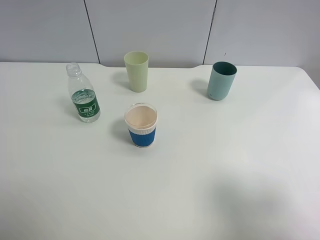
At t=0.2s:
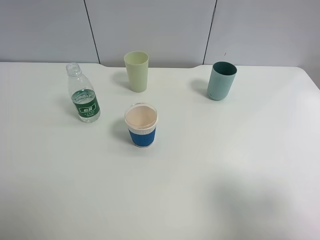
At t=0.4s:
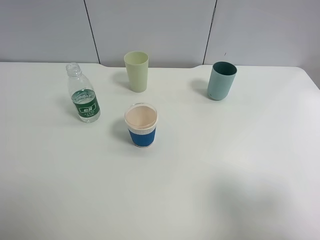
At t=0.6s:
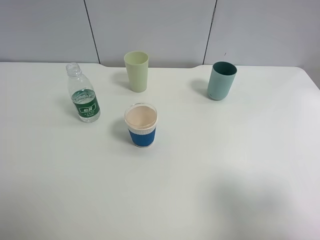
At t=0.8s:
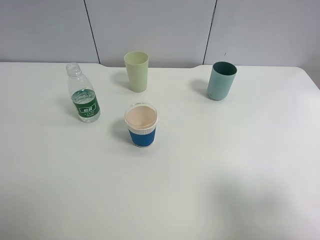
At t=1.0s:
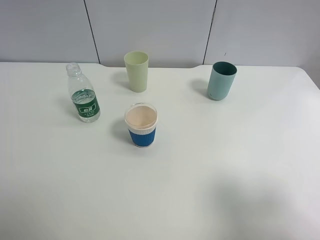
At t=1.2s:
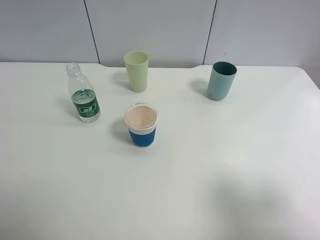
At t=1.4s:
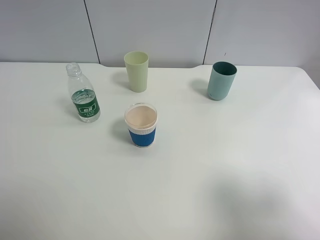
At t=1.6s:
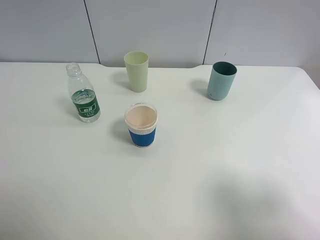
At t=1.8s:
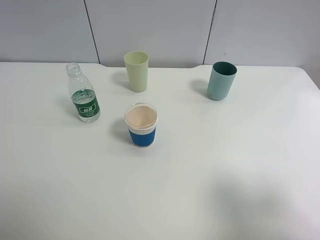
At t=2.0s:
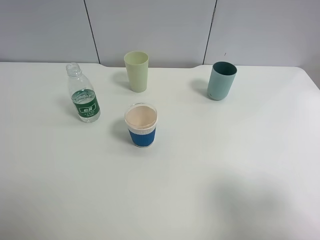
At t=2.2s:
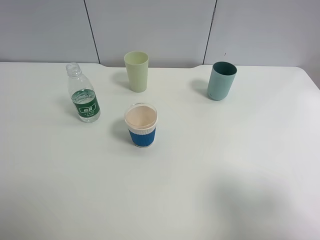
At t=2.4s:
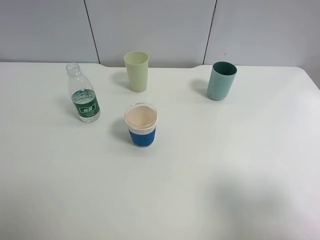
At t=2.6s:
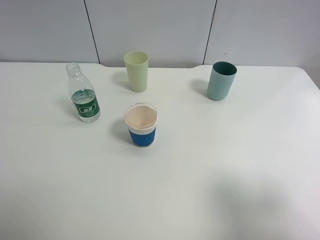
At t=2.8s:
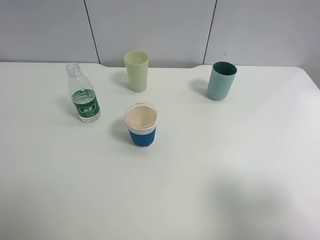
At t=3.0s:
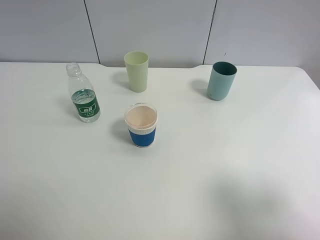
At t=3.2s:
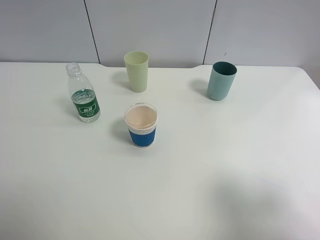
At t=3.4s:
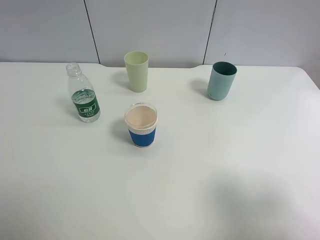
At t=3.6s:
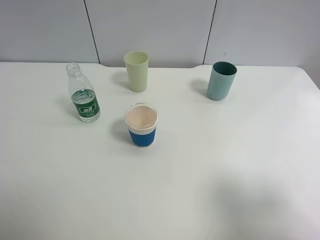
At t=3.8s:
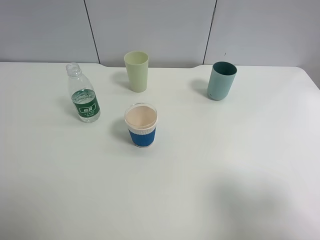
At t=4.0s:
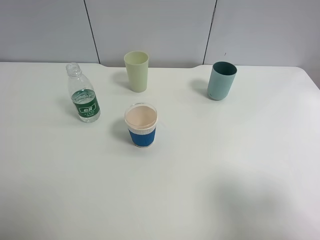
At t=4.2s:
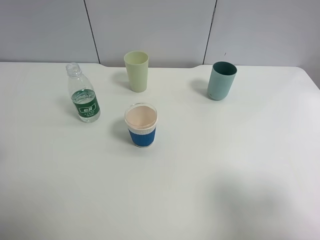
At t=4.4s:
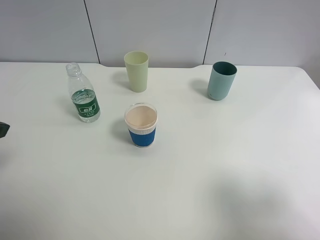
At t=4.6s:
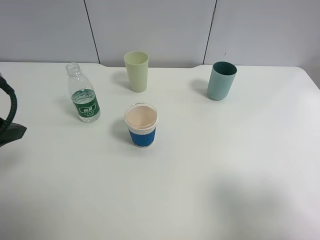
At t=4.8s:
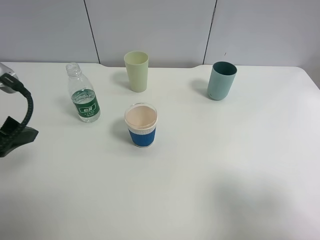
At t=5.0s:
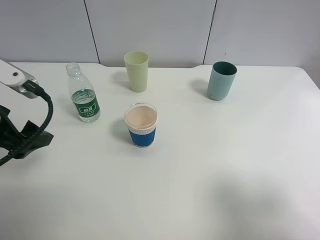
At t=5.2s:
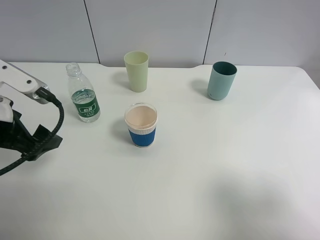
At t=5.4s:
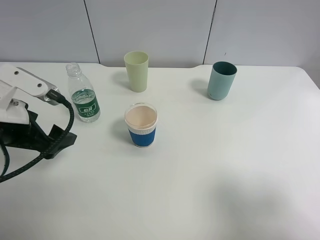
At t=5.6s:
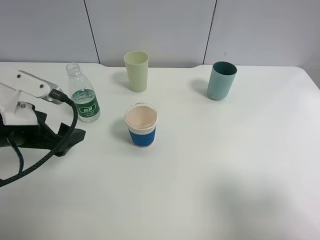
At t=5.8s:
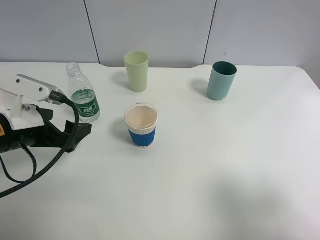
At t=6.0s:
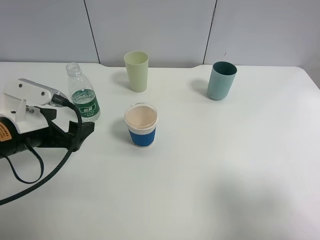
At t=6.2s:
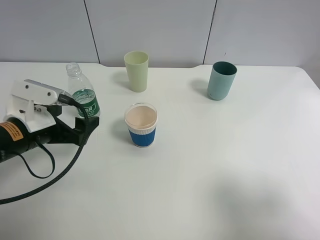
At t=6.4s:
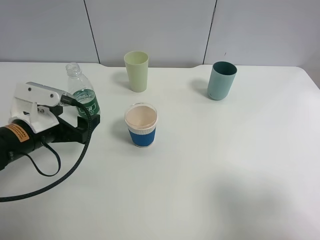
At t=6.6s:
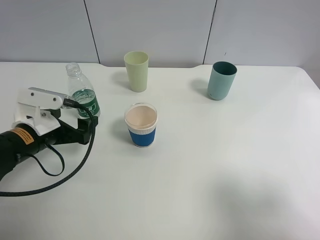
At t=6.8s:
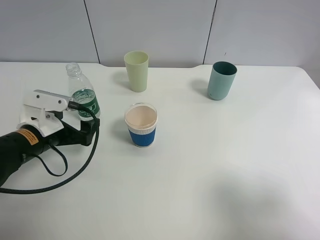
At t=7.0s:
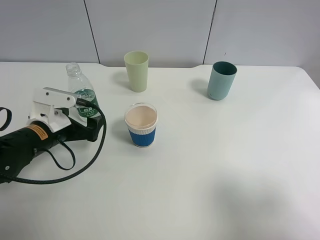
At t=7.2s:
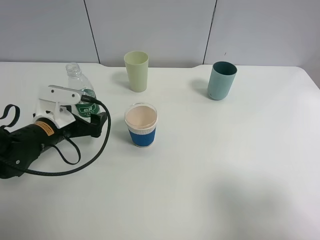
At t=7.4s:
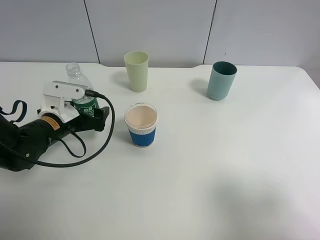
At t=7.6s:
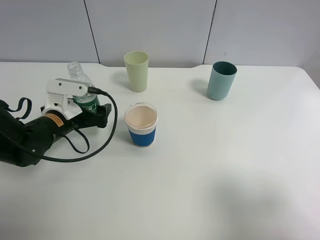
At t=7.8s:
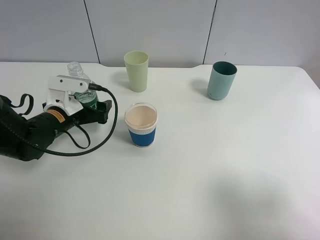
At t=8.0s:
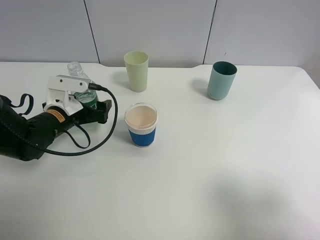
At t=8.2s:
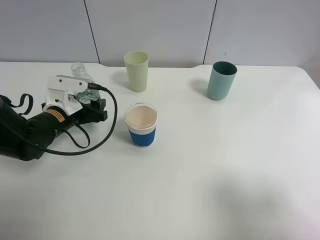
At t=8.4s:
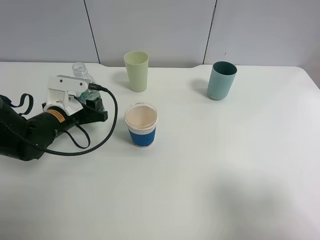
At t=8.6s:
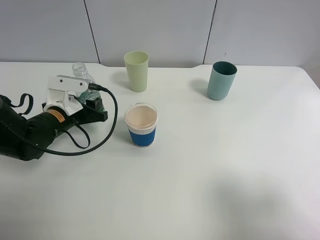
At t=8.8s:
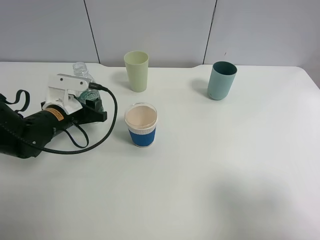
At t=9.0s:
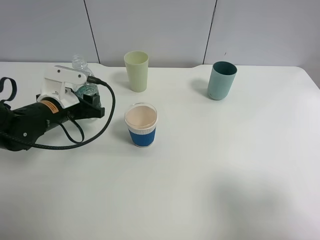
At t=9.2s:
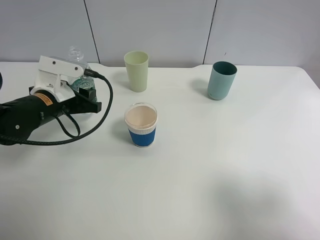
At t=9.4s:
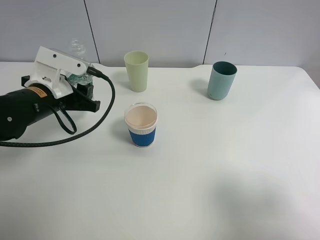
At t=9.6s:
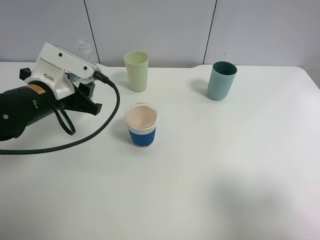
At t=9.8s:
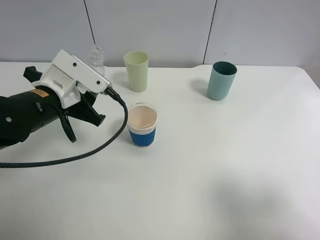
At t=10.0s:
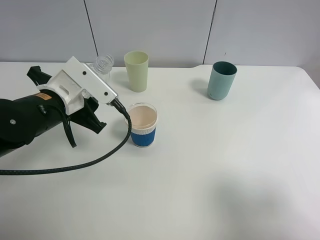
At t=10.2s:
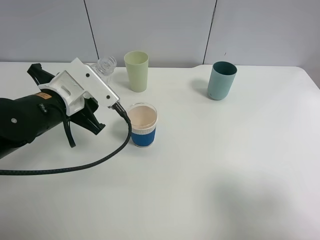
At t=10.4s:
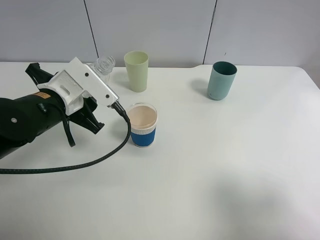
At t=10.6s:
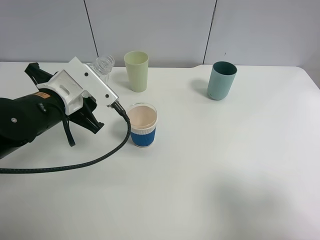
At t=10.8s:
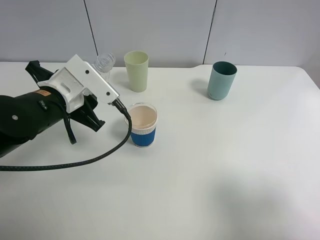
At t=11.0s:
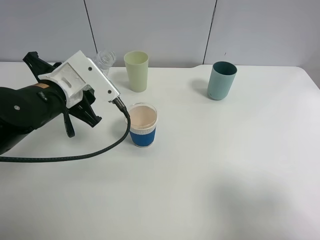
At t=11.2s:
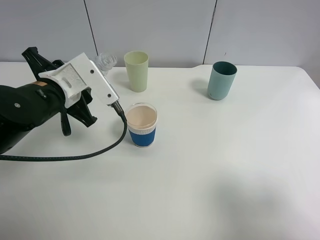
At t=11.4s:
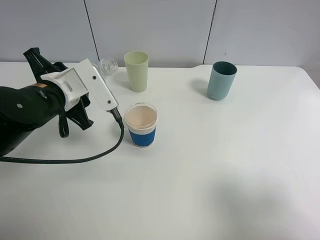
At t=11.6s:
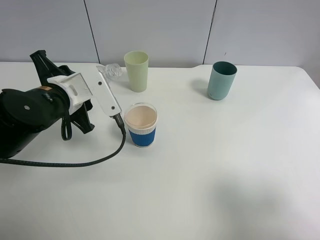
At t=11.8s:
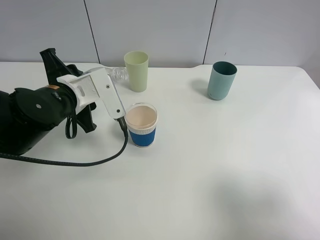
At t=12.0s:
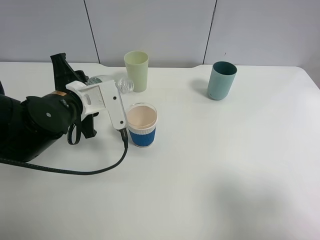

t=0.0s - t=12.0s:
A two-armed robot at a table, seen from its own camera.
Task of the whole recording: use a clamp to hold the bottle of the drink, pour the beverage into a random cup, then clamp the cup containing the drink and pour the drink into another random cup.
Step, t=0.0s - t=9.2s: Pick up the water bottle with left gripper.
t=0.0s - t=3.0s: Neither gripper changes place.
t=4.4s - t=6.0s: The left gripper goes approximately 15 cm downward and forward.
t=6.0s - t=7.6s: The left gripper heads forward and downward, covering some 10 cm.
t=7.6s - t=9.0s: The left gripper closes.
t=9.0s - t=10.4s: The left gripper heads upward and backward, covering some 10 cm.

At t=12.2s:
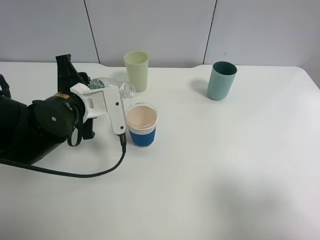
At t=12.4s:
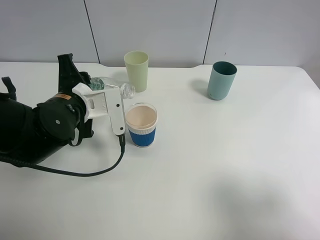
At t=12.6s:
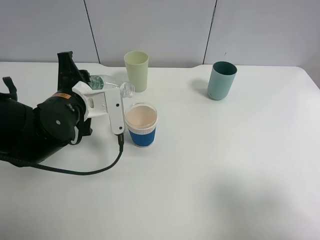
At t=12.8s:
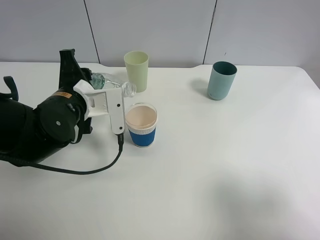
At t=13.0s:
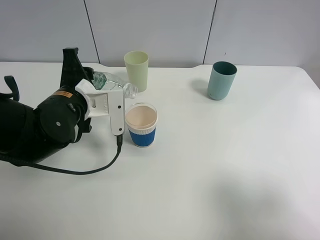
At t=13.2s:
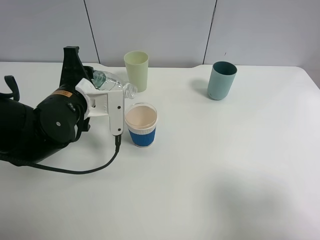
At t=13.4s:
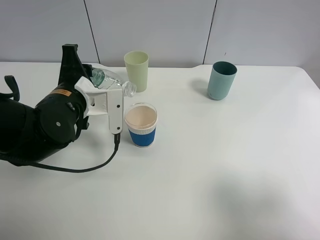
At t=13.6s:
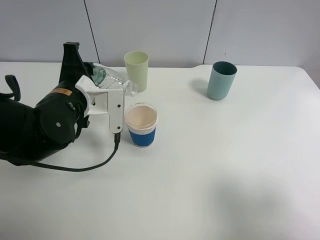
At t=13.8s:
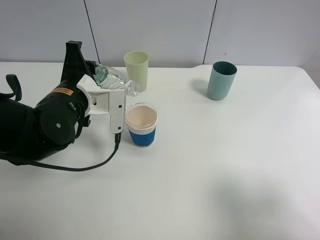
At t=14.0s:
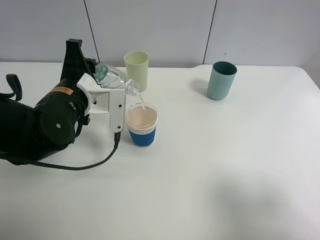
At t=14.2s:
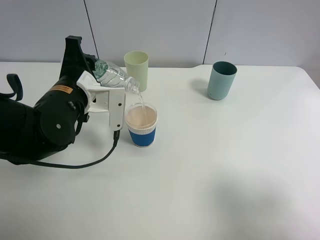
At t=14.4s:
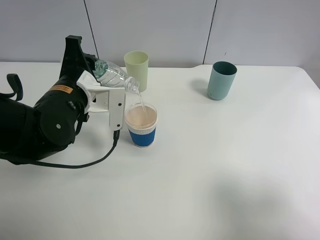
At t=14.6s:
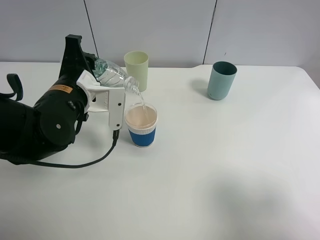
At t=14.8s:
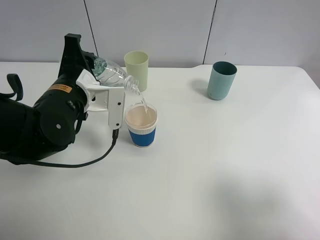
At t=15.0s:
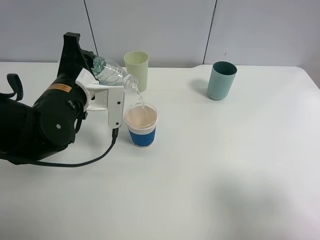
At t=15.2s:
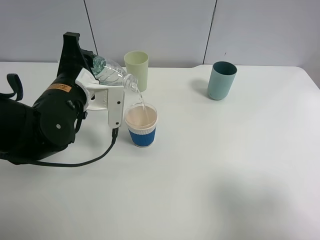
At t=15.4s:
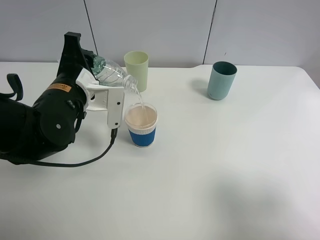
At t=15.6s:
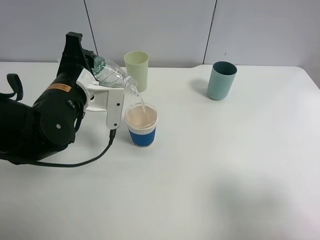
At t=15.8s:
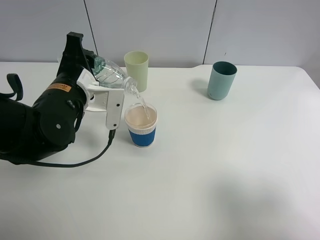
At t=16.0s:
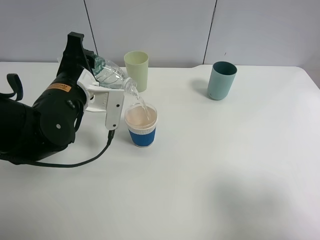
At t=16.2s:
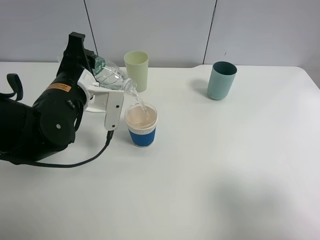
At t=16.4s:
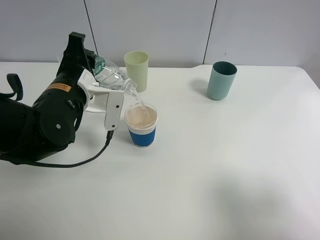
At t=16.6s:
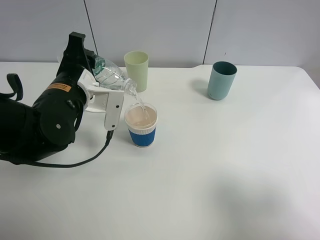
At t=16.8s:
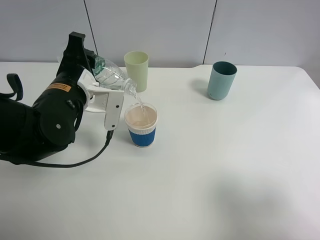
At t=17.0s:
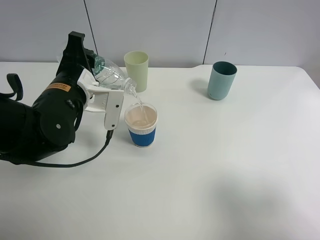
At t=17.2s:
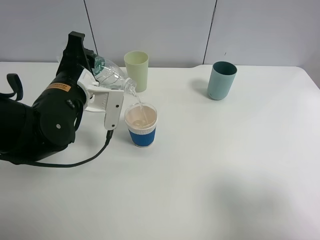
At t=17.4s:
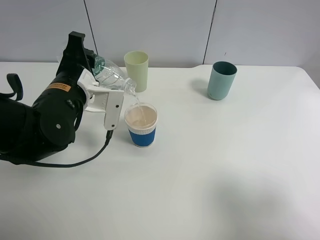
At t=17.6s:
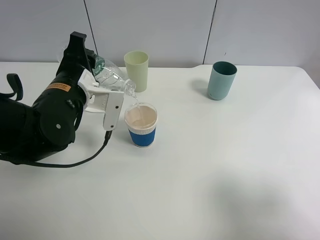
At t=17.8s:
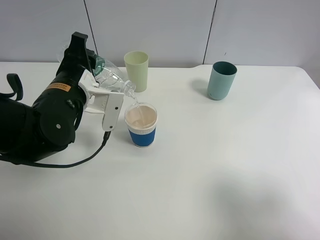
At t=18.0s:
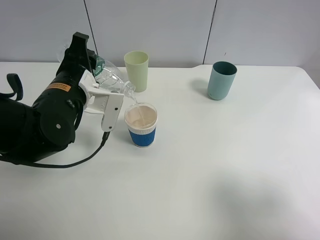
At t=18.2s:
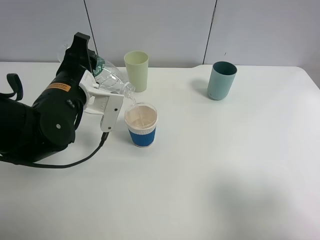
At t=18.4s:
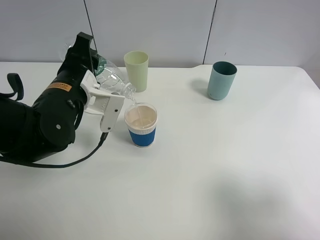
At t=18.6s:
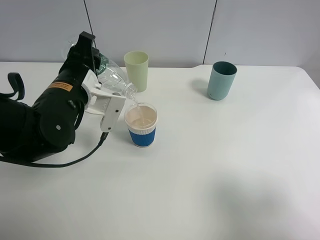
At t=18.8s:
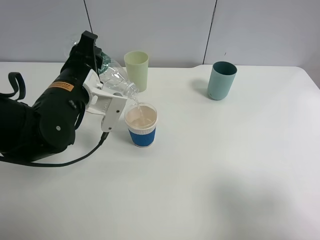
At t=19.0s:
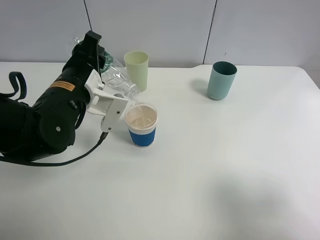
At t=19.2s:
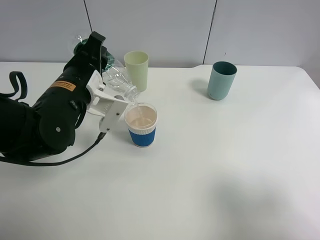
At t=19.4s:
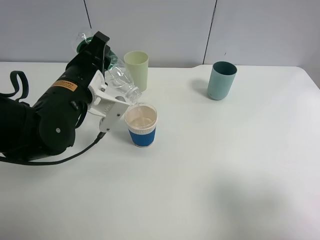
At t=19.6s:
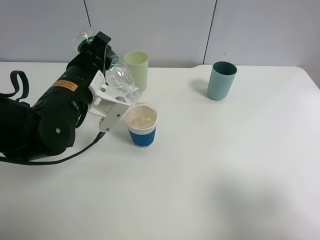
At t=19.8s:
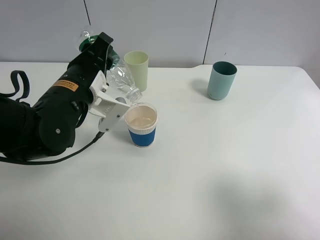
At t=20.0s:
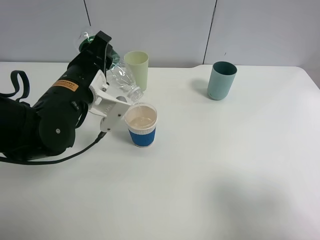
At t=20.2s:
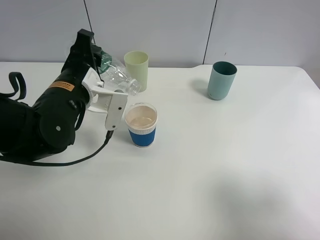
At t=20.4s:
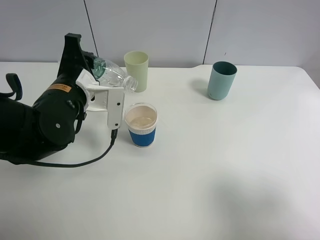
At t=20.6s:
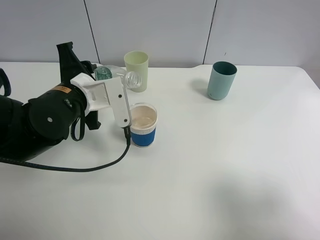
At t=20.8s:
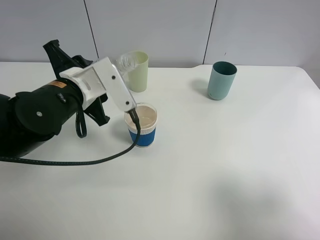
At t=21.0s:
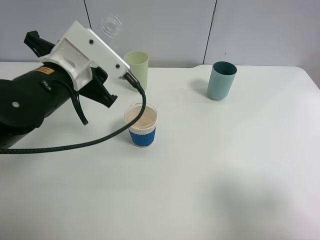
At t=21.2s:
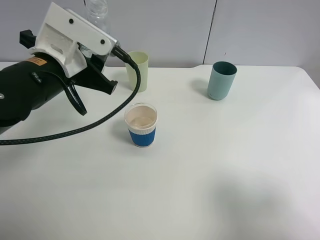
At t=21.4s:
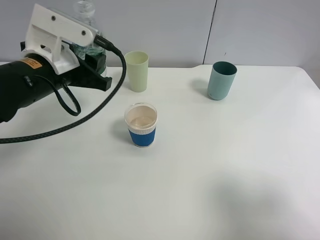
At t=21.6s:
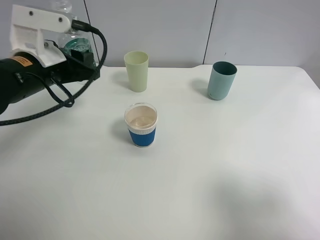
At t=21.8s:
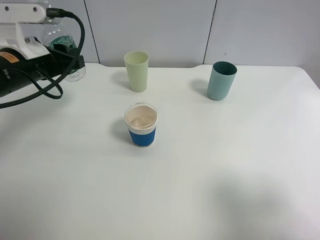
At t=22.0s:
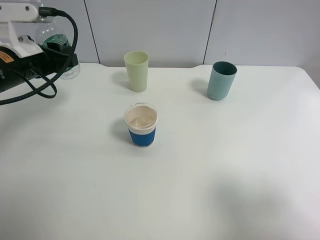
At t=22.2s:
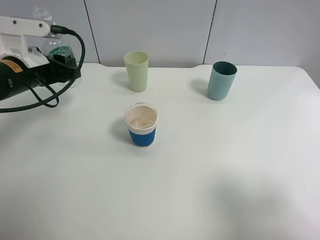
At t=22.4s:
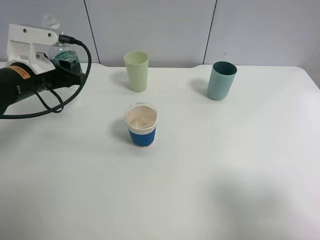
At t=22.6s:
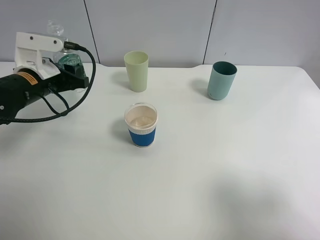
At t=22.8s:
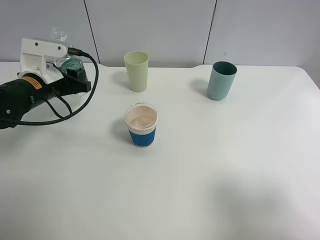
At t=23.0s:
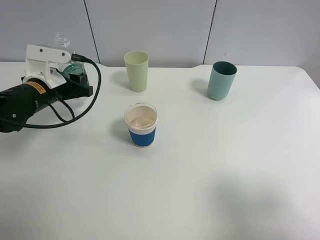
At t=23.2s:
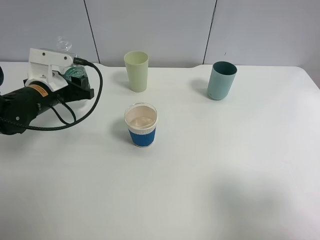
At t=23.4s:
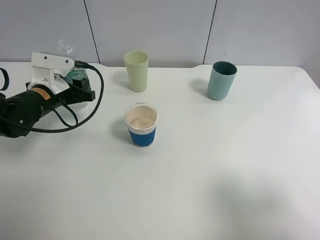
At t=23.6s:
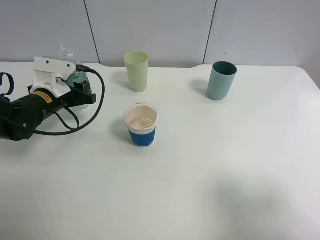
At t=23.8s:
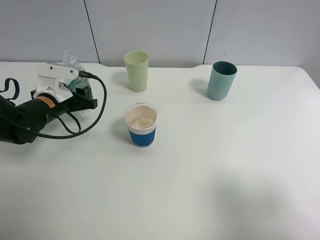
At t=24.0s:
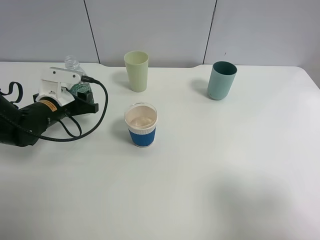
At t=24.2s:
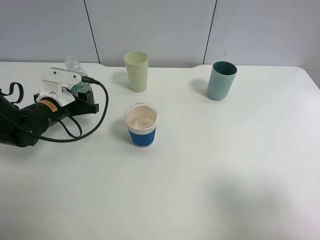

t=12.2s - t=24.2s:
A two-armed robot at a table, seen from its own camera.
Task of the whole recording: use a clamp to hold the bottle of the drink, pour the beverage into a random cup, then clamp the cup containing the drink and pour the drink into another random cup.
Step, t=12.2s - t=20.6s: Pour water into the paper cup with left gripper.
t=12.2s - t=13.8s: The grippers stay close to where they were, moving slightly.
t=13.8s - t=18.2s: There are only small adjustments of the grippers.
t=18.2s - t=19.8s: There are only small adjustments of the grippers.
t=21.2s - t=22.6s: The left gripper moves to the left, downward and forward, about 10 cm.
t=22.6s - t=24.2s: The left gripper is displaced downward by some 5 cm.
